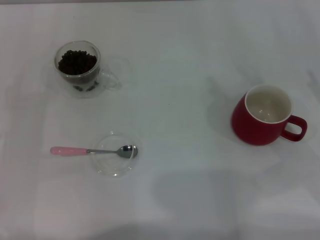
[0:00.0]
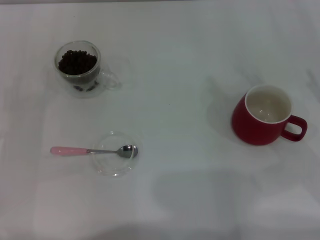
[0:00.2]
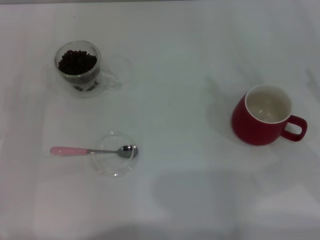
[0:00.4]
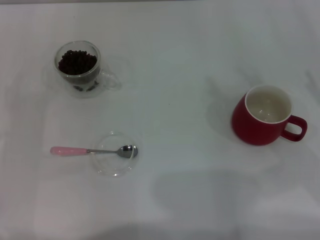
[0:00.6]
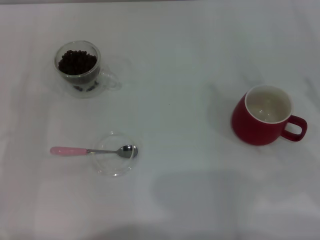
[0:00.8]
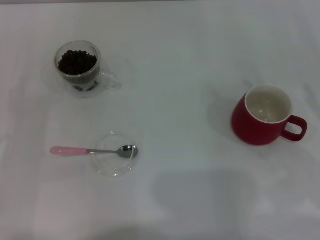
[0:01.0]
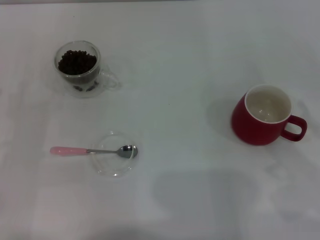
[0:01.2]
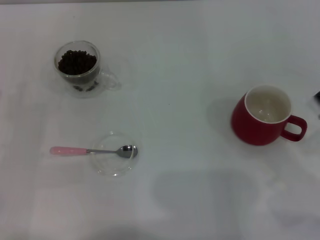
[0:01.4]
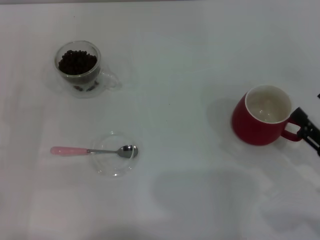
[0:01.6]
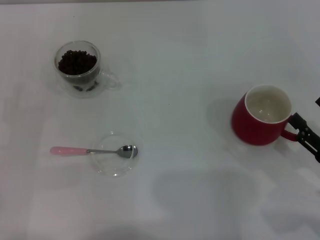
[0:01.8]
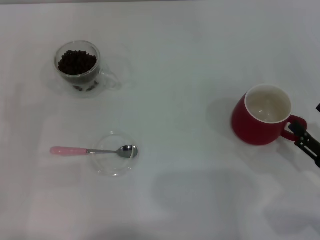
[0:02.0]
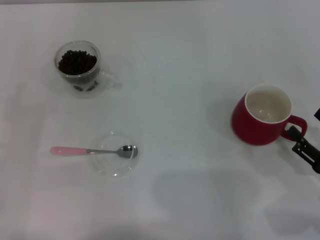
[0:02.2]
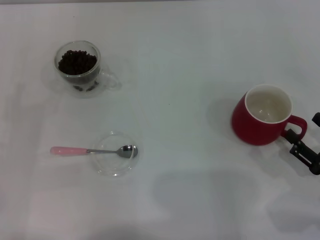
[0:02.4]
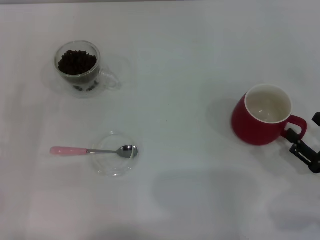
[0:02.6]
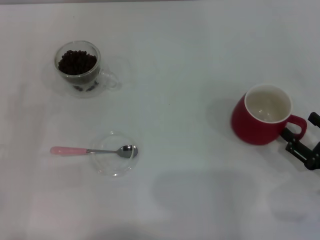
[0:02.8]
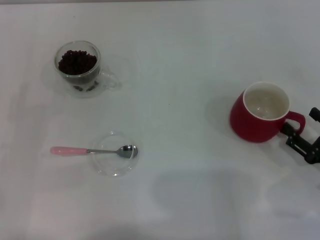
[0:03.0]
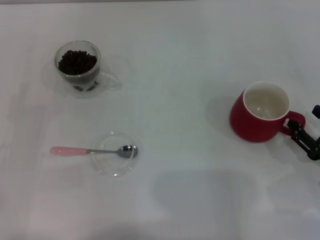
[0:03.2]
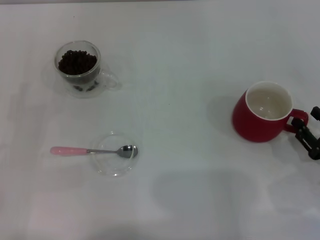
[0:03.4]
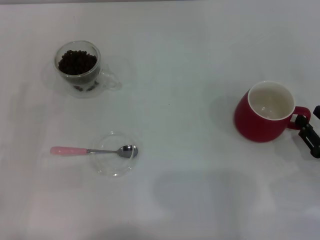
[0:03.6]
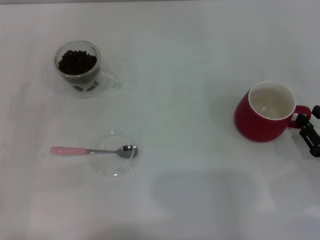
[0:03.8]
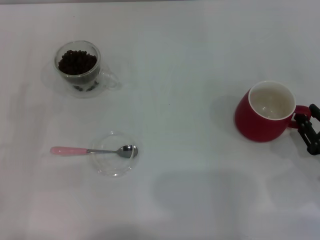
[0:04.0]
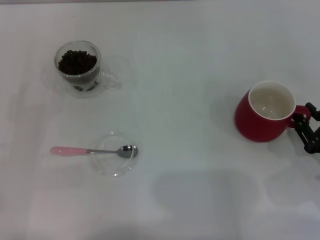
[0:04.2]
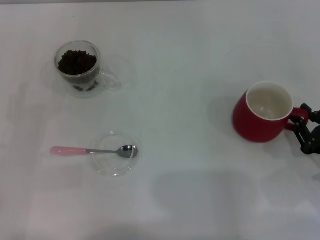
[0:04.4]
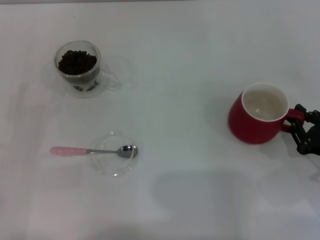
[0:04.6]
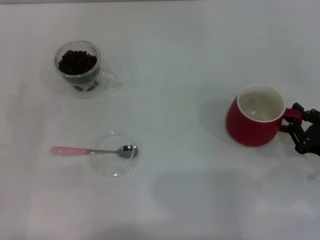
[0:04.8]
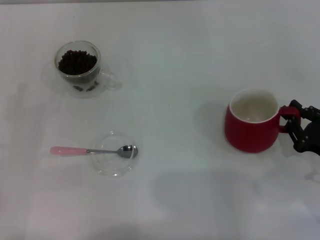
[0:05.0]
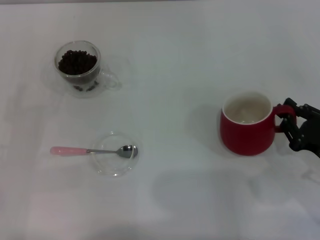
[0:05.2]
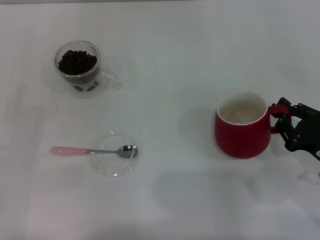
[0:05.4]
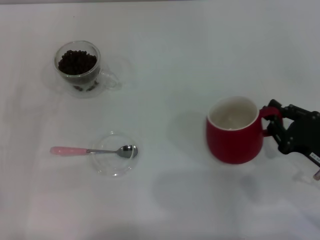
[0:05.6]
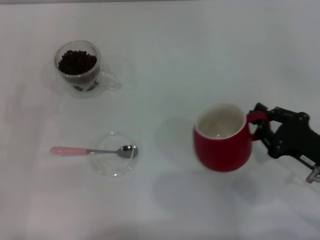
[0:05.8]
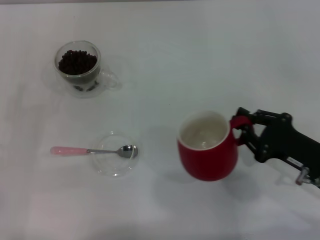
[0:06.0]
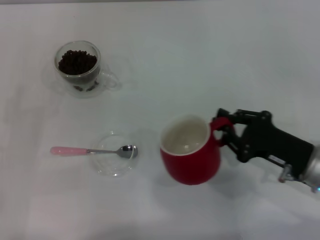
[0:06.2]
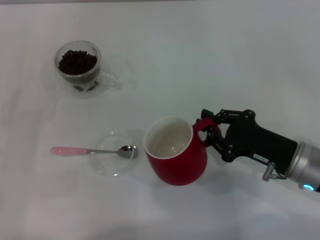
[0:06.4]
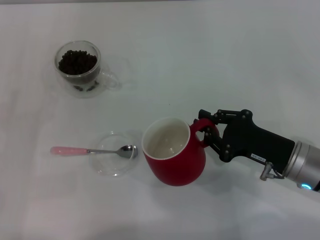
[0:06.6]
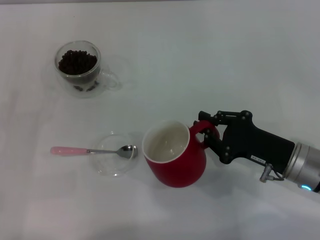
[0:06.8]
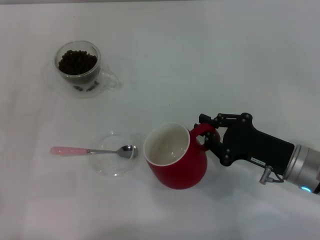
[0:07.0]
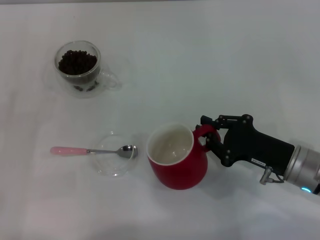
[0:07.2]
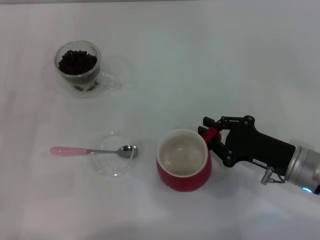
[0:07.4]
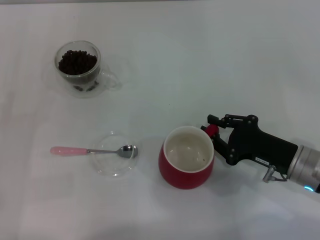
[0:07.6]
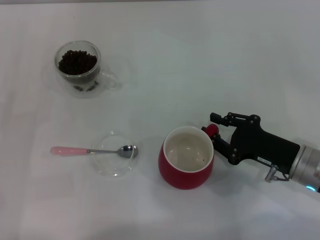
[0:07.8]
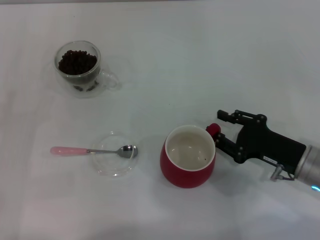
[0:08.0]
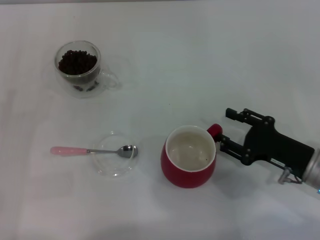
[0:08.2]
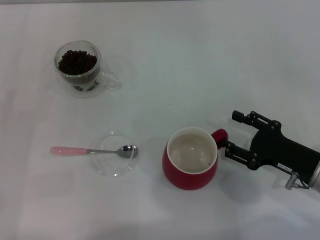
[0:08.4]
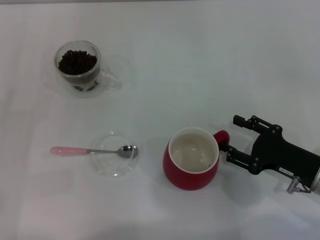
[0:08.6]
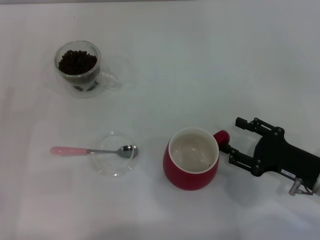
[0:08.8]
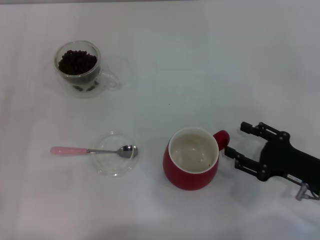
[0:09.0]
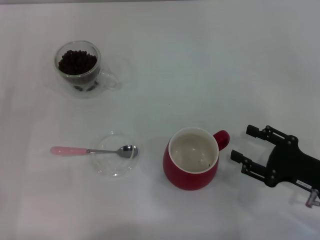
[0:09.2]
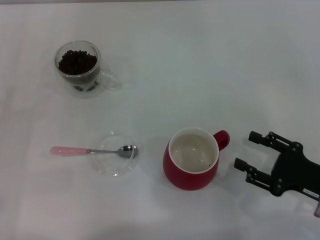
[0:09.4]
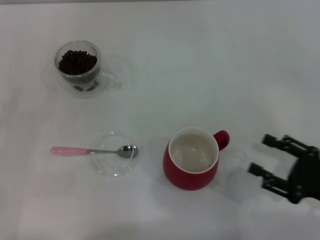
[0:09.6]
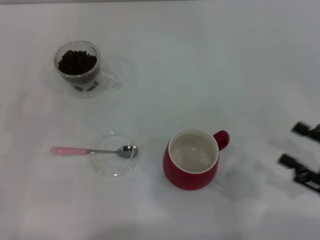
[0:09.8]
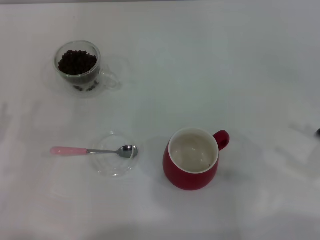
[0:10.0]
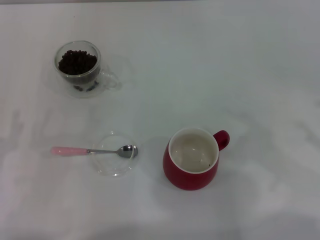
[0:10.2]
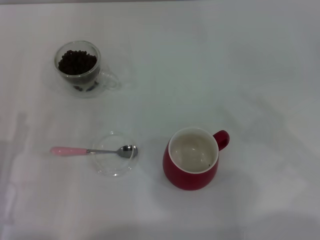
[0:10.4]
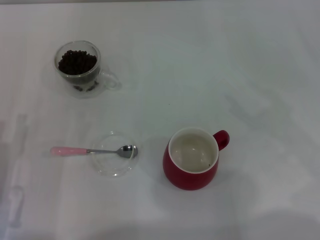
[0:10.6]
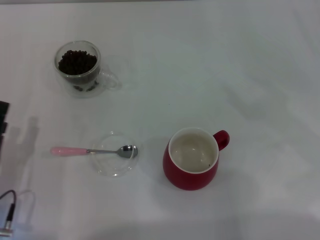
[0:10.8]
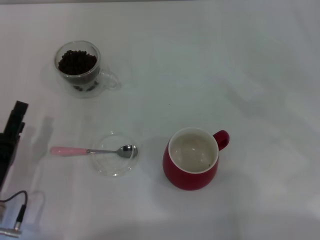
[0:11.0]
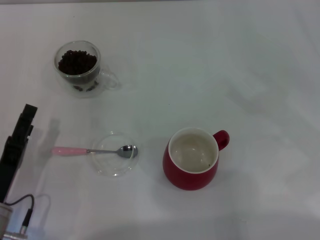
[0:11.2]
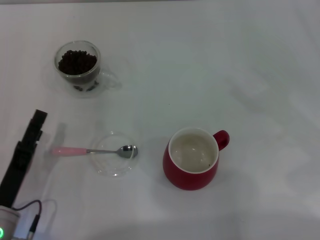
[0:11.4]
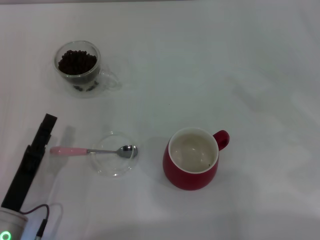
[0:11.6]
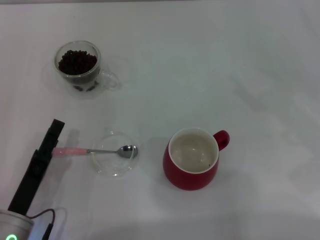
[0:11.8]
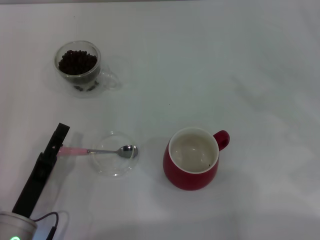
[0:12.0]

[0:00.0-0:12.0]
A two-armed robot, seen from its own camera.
Task of the whole recording: Use a pink spoon to take out the coffee beans from the glass and pour them into the red cup.
Step, 0:00.0 to 0:09.2: Move the cup to the center of view with the left gripper.
0:00.0 to 0:01.6: The right gripper is displaced backward and downward by roughly 10 cm.
0:01.6 to 0:03.0: The grippers stay close to where they were, moving slightly.
0:03.0 to 0:04.4: The right gripper closes up.
0:04.4 to 0:06.0: The right gripper moves to the left, some 5 cm.
0:06.0 to 0:07.6: The grippers stay close to where they were, moving slightly.
0:07.6 to 0:09.0: The right gripper shifts by approximately 5 cm, and opens its fingers.
0:09.0 to 0:10.4: The right gripper travels to the right and upward by approximately 15 cm.
0:10.4 to 0:12.0: The left gripper shifts approximately 5 cm to the right.

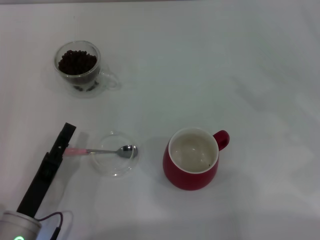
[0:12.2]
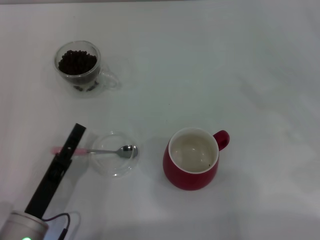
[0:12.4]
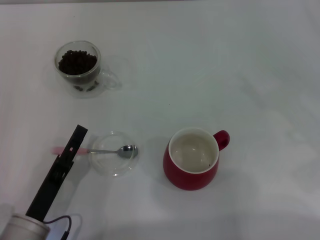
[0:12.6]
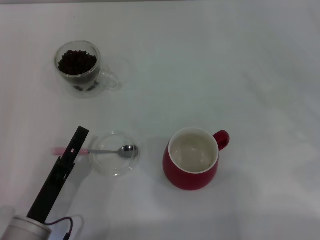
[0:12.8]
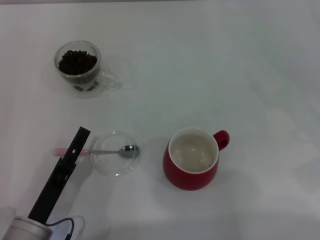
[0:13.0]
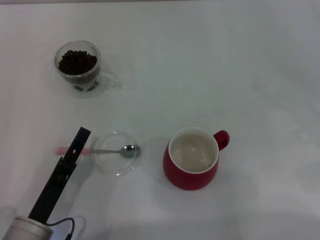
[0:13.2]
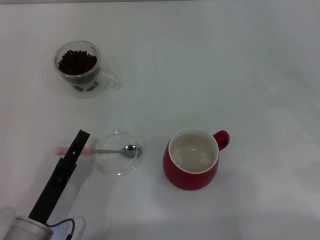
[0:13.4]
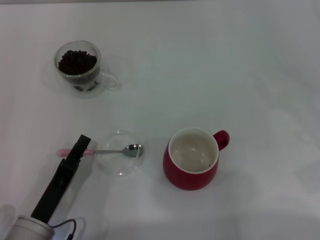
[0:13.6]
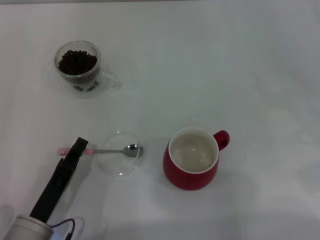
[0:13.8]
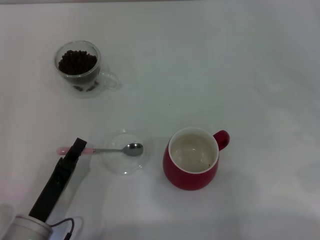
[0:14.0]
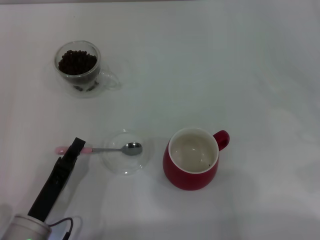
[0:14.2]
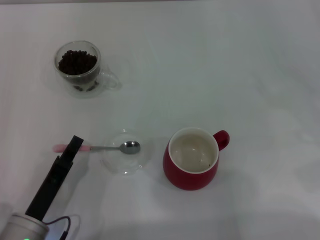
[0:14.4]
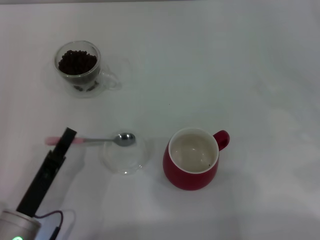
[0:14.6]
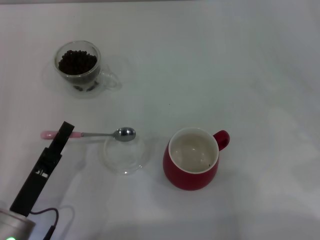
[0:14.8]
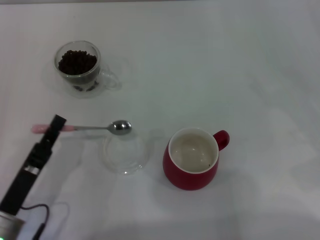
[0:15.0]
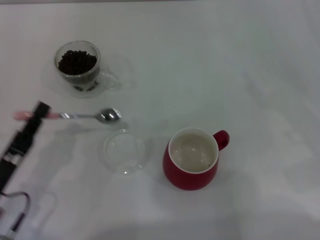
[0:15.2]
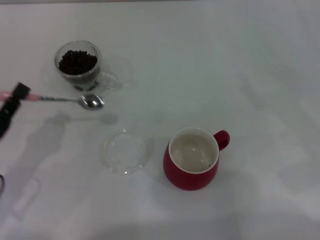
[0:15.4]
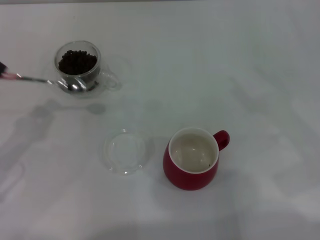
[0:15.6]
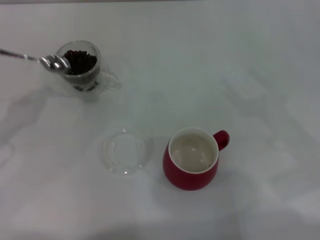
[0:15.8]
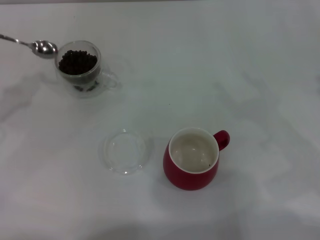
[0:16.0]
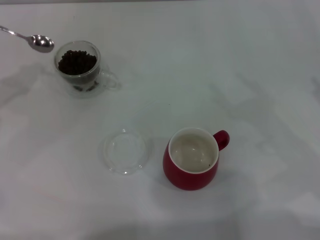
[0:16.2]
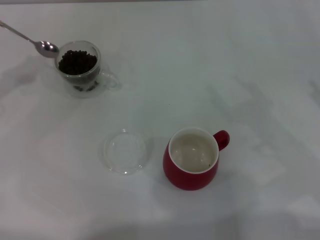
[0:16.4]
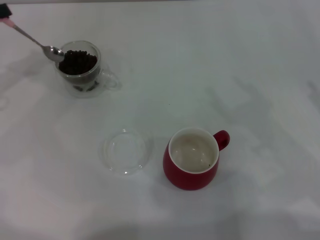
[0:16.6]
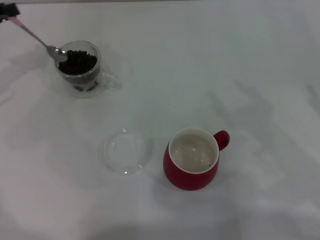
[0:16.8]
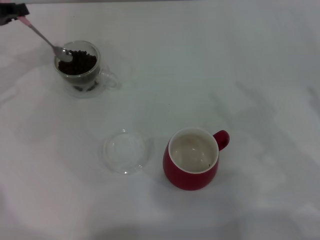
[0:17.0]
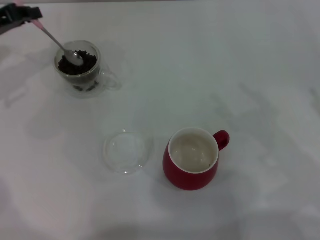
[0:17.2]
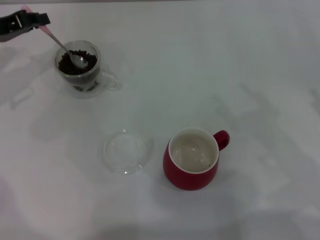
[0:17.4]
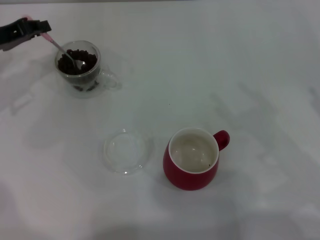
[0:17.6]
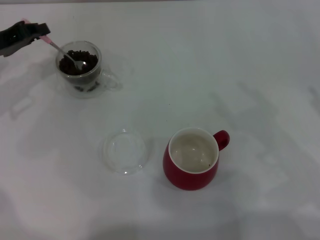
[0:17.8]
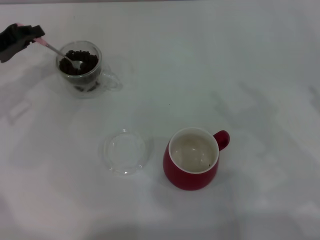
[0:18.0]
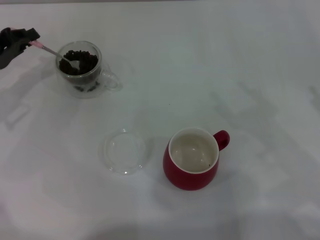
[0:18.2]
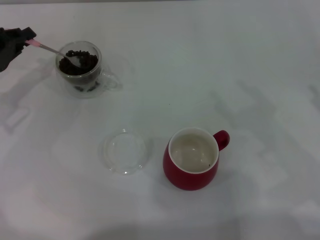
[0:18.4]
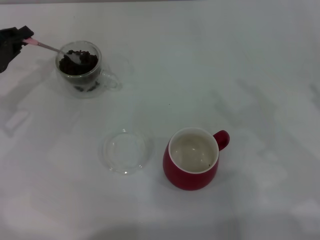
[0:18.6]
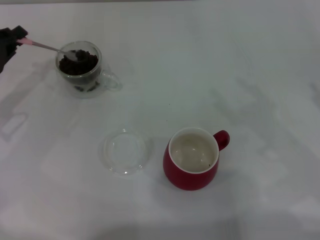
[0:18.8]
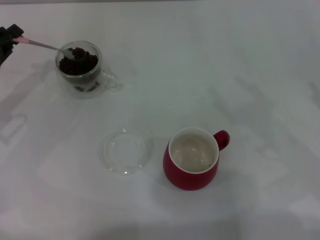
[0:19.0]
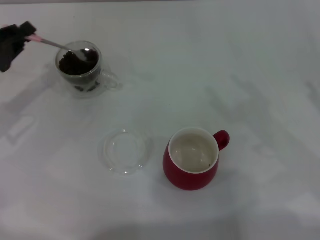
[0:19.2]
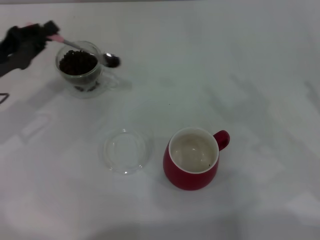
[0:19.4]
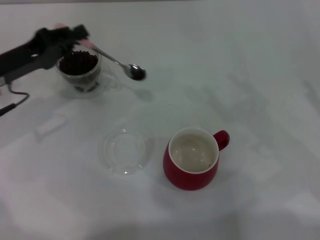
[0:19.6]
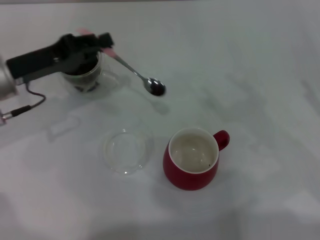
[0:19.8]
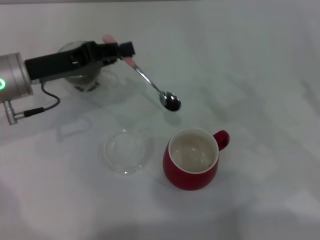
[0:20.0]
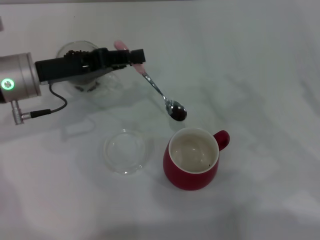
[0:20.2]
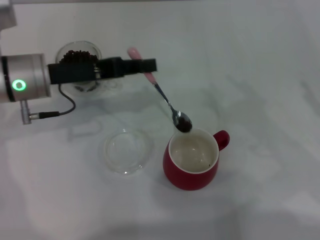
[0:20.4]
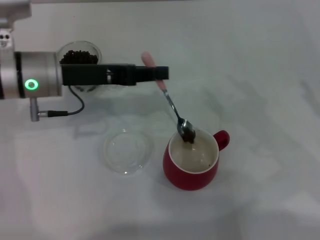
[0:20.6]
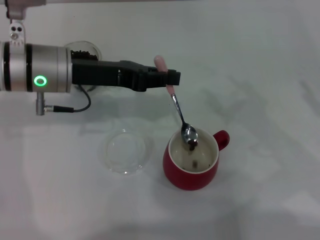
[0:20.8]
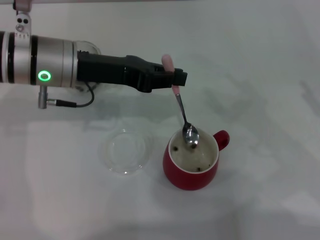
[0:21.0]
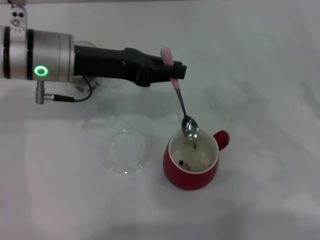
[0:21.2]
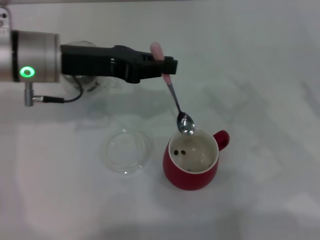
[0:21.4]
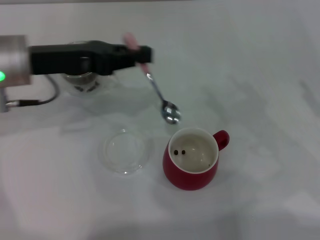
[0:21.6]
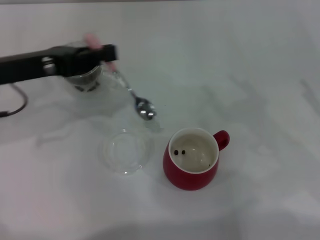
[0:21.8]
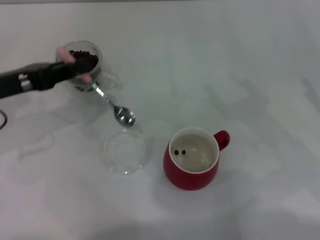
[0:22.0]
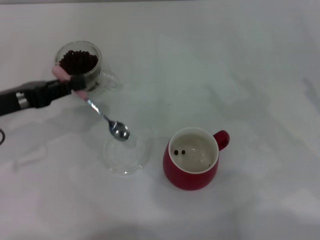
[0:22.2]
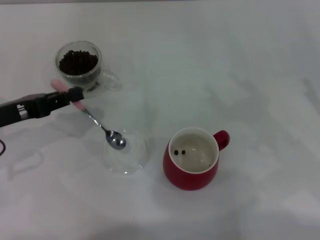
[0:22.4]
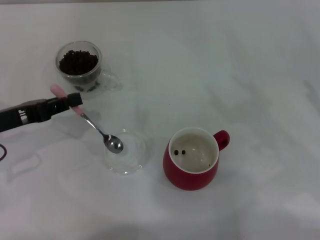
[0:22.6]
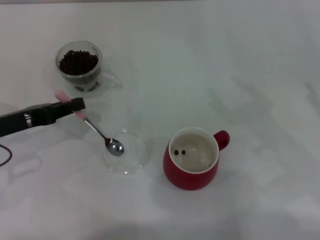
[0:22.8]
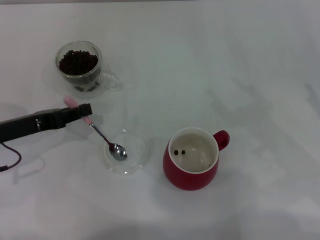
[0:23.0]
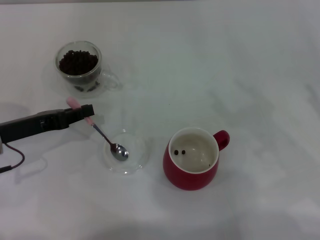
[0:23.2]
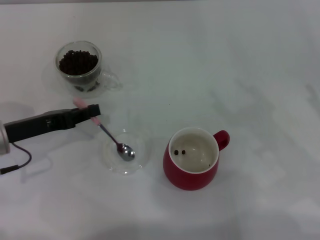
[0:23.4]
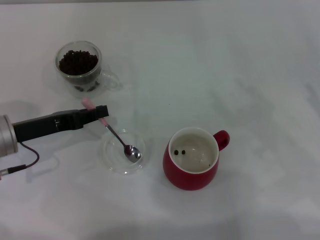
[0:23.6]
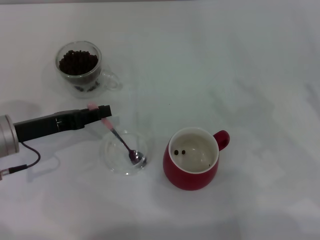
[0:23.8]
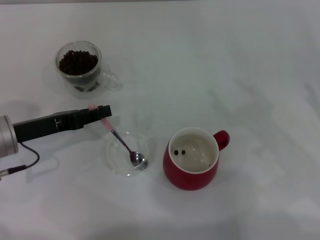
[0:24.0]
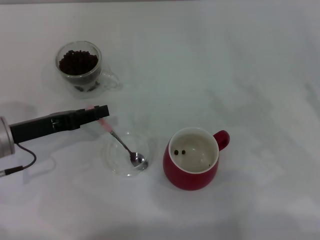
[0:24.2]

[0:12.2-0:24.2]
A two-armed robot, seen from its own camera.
Task of the whole recording: Use a pink spoon to take out the coffee beans from the glass and pour them into the red cup.
Step, 0:12.2 to 0:15.0: Pick up the spoon with the right gripper.
Step, 0:15.2 to 0:21.4: Scoop a spoonful of beans into the cup with the right gripper.
0:12.2 to 0:13.8: The left gripper closes up.
0:13.8 to 0:15.2: The left gripper goes about 5 cm to the left, and closes up.
0:15.2 to 0:16.6: The left gripper is displaced forward, upward and to the left by approximately 25 cm.
0:16.6 to 0:18.2: The left gripper travels downward by some 5 cm.
0:18.2 to 0:19.8: The left gripper moves to the right, some 5 cm.
0:19.8 to 0:21.2: The left gripper heads to the right and upward, covering about 10 cm.
0:21.2 to 0:22.6: The left gripper moves to the left, downward and backward, about 15 cm.
0:22.6 to 0:24.2: The grippers move only a little.
